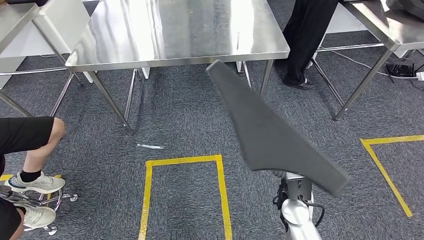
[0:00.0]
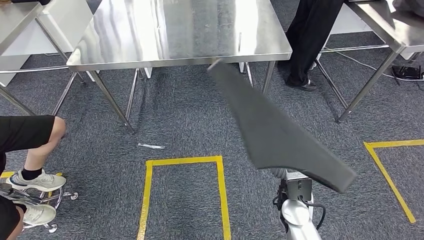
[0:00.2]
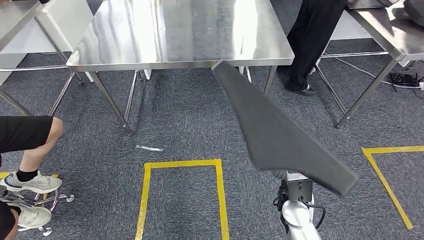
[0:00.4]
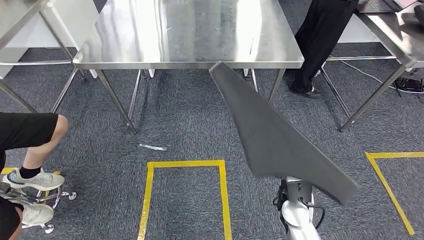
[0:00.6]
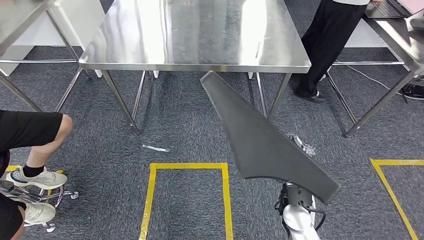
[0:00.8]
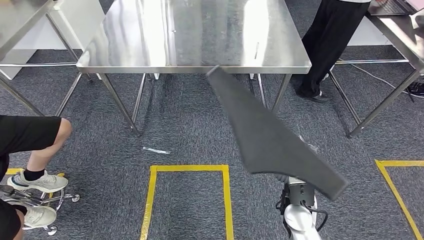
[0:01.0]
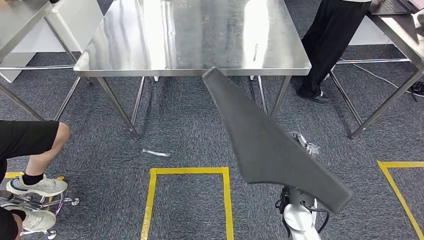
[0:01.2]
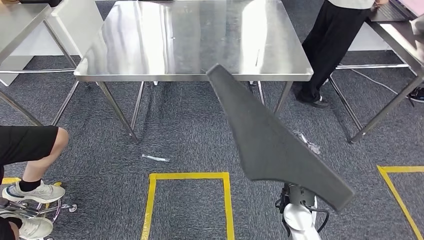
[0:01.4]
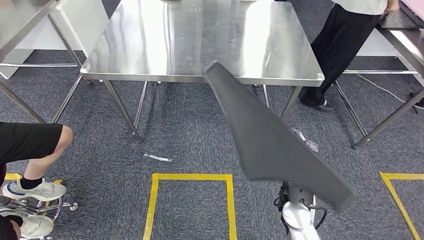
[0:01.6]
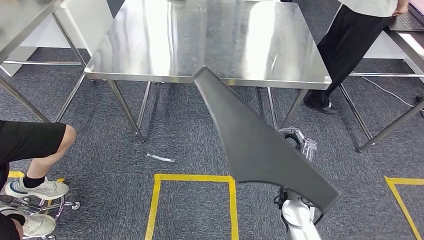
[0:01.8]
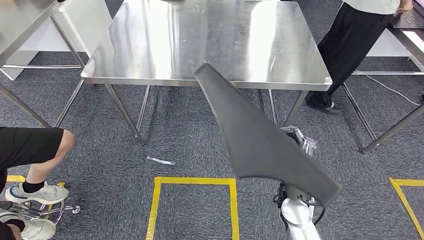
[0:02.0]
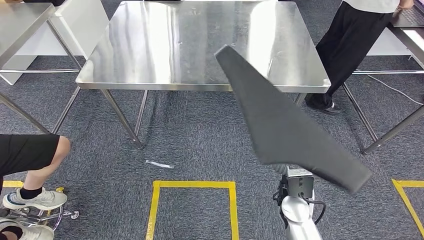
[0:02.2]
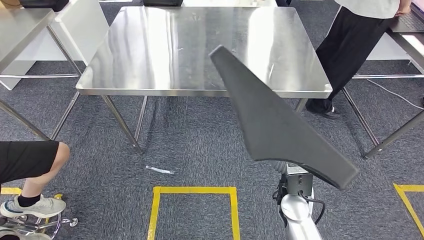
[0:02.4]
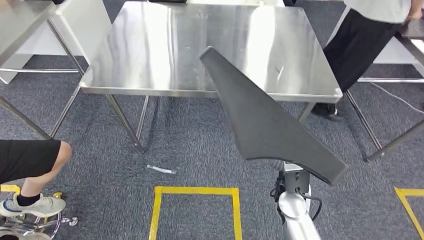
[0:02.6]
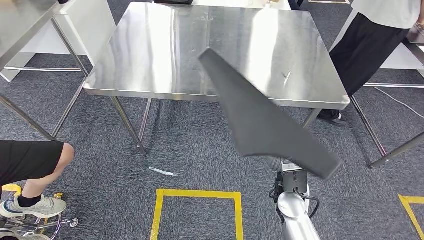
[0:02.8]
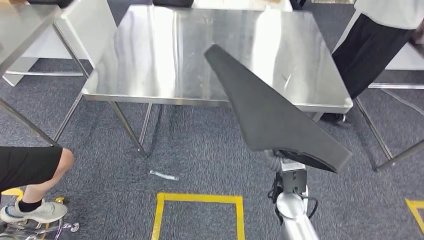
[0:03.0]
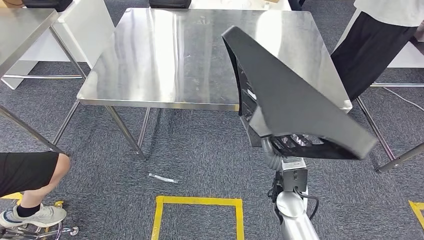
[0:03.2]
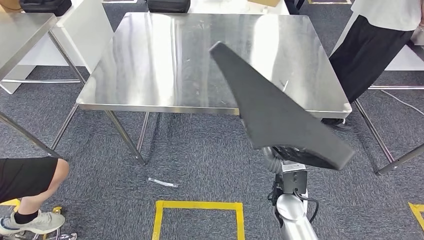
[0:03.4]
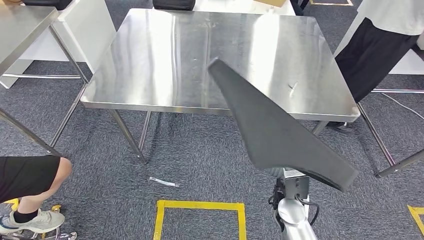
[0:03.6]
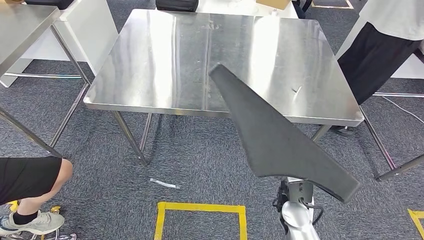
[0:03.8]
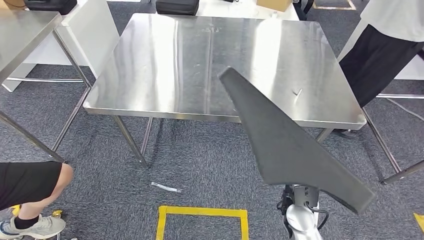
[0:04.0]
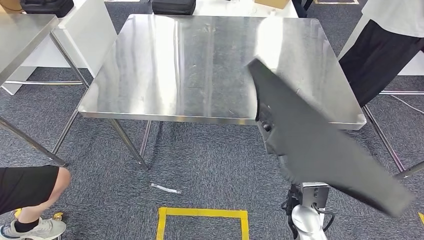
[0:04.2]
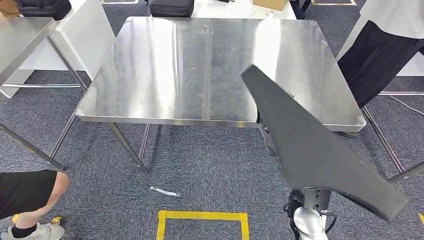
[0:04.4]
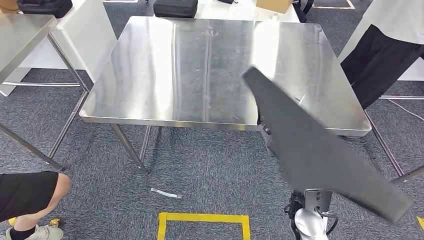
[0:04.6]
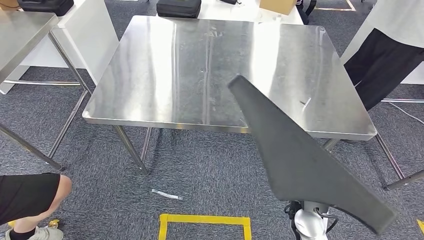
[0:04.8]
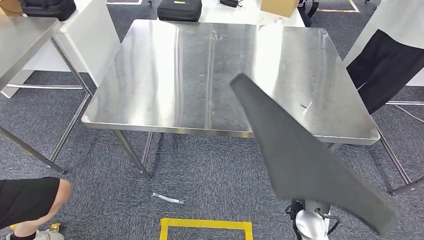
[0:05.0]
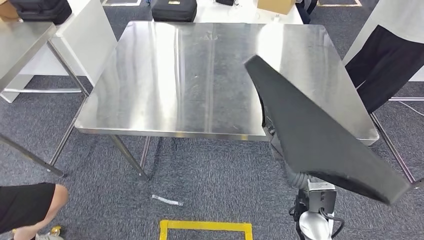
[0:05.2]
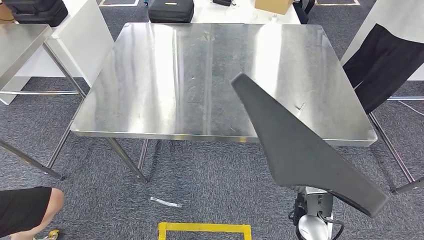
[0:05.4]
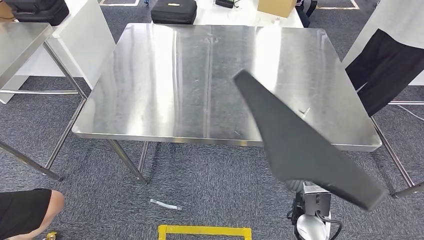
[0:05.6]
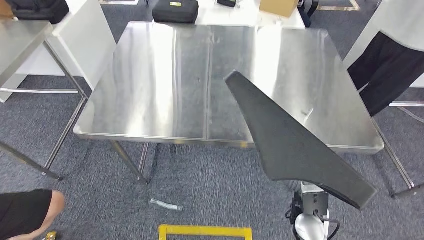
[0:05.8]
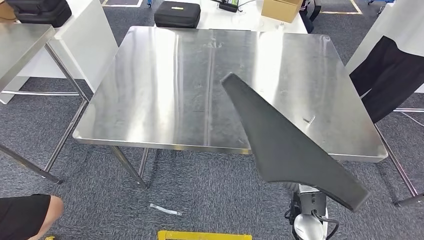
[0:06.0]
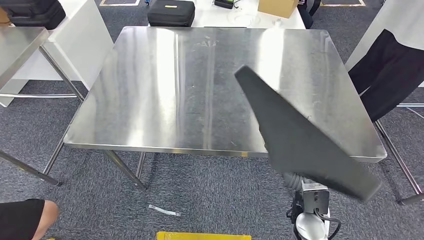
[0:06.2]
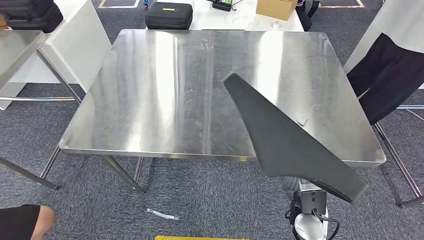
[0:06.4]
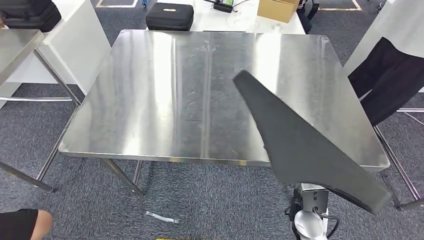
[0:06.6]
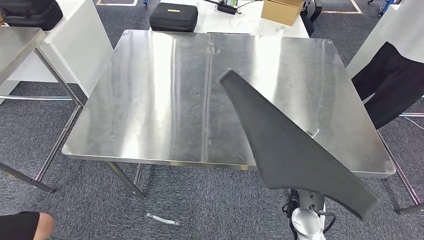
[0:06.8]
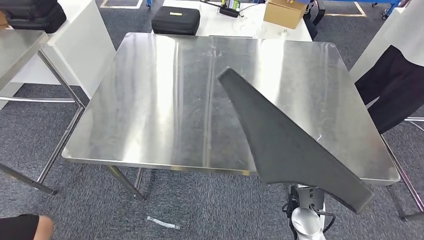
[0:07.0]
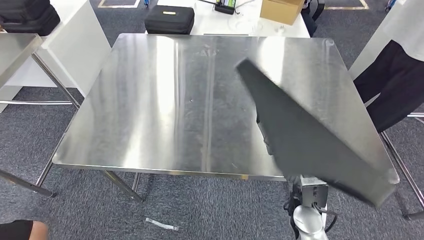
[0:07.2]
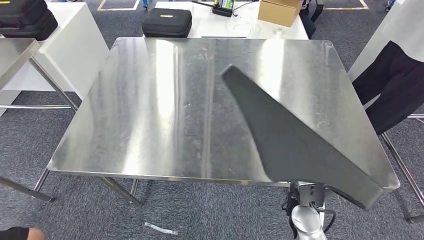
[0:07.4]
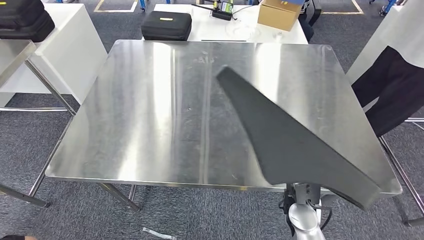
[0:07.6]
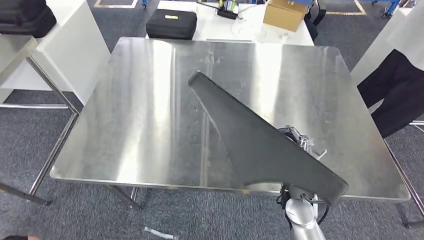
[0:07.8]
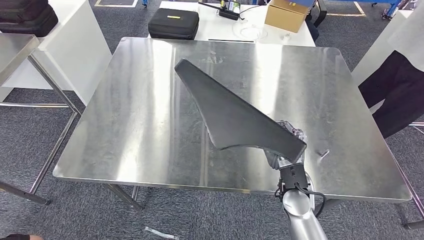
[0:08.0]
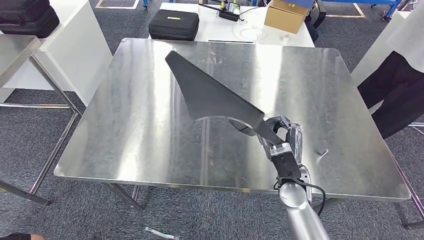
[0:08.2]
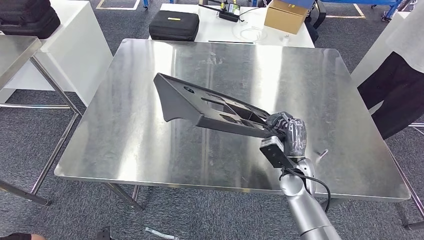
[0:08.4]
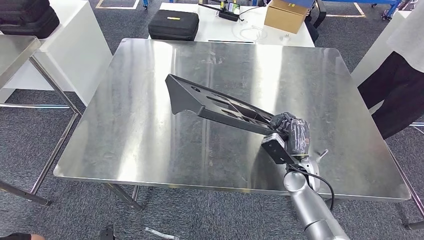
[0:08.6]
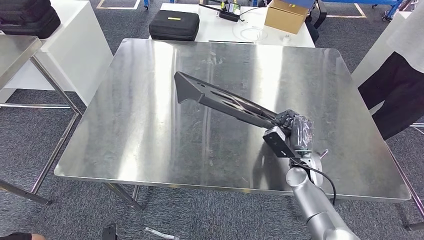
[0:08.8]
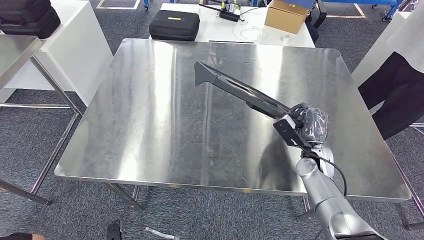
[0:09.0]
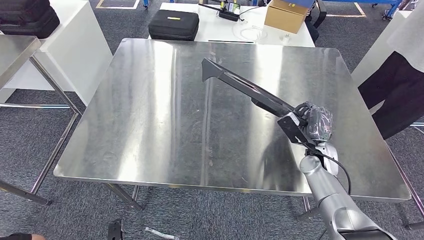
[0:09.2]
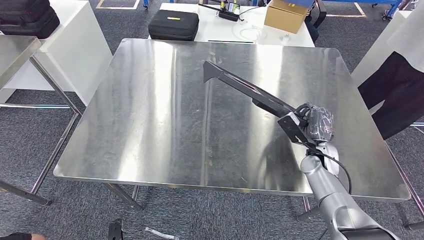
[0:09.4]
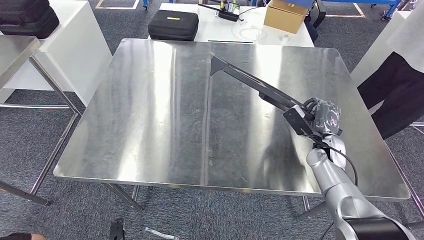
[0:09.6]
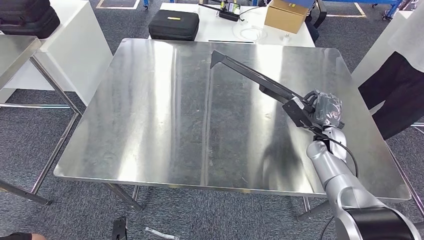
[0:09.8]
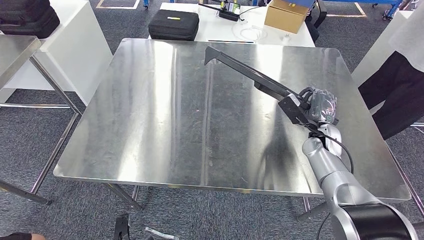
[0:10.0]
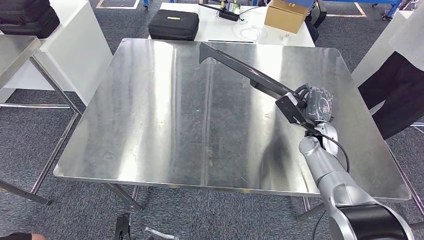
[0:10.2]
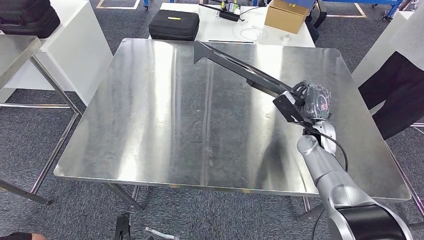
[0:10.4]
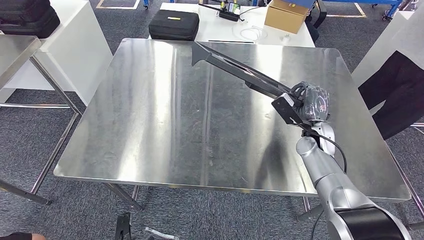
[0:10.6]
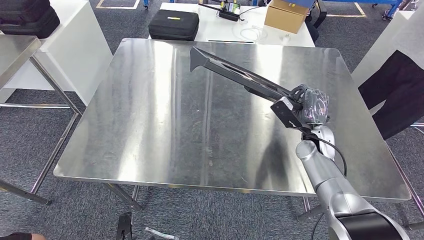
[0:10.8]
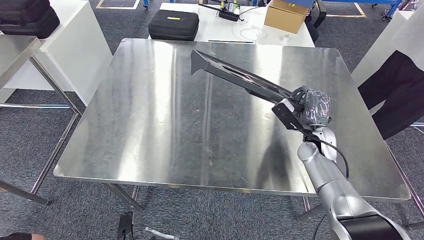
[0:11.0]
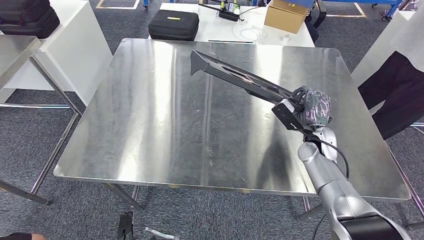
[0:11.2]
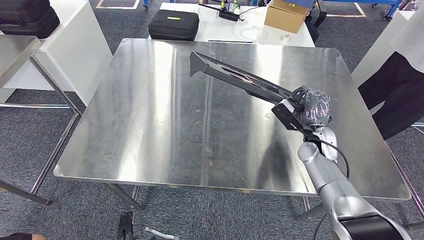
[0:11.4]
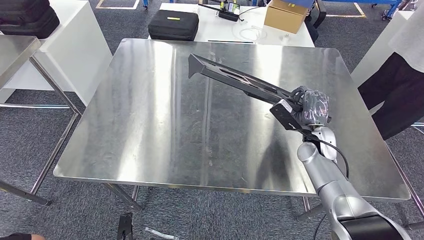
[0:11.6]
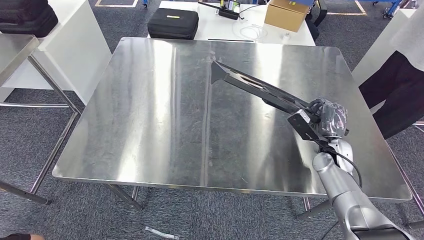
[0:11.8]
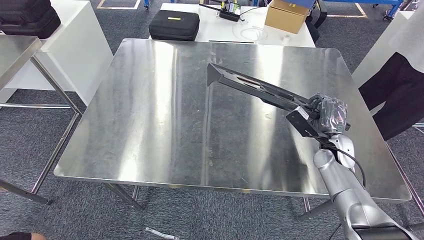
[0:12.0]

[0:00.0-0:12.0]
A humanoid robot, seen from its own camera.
Step, 0:00.0 to 0:02.0: Move the large material to the workbench.
0:09.0 to 0:10.4: The right hand shifts by roughly 5 cm.
0:10.4 to 0:12.0: The right hand moves roughly 5 cm. The left hand travels backward by about 15 cm.

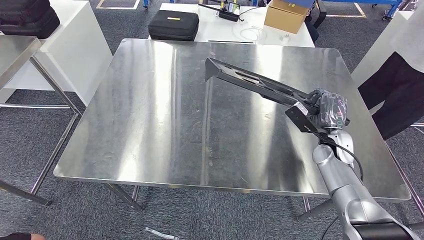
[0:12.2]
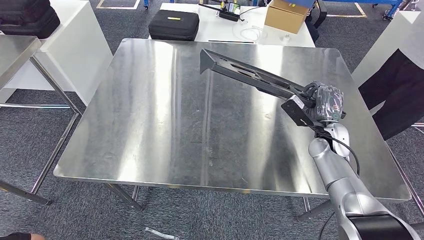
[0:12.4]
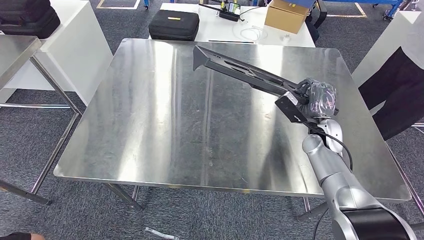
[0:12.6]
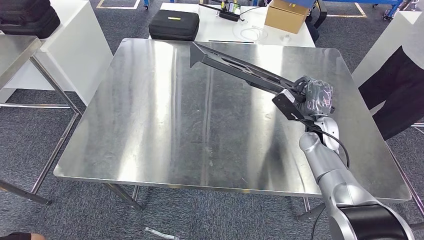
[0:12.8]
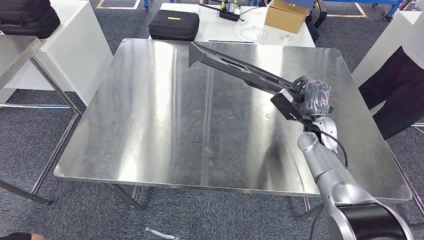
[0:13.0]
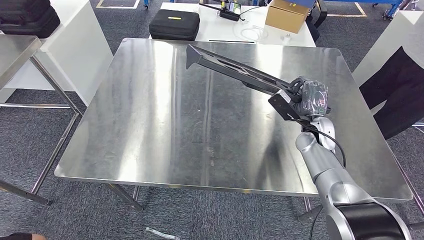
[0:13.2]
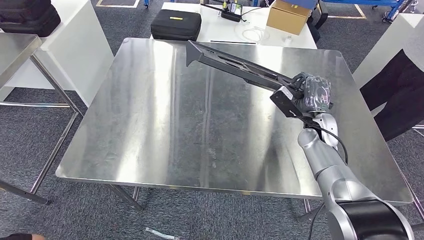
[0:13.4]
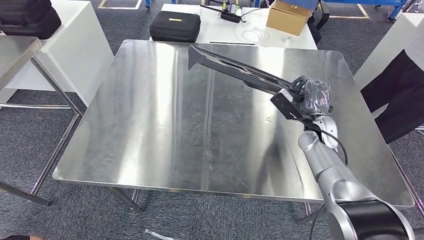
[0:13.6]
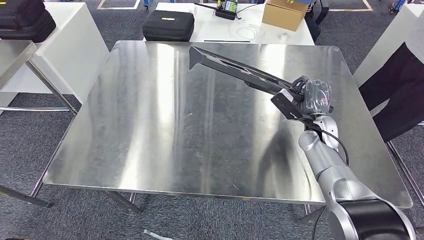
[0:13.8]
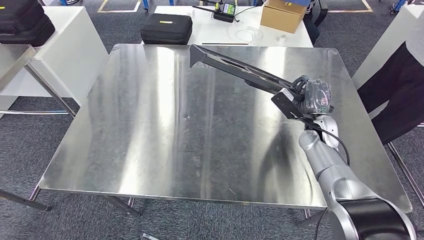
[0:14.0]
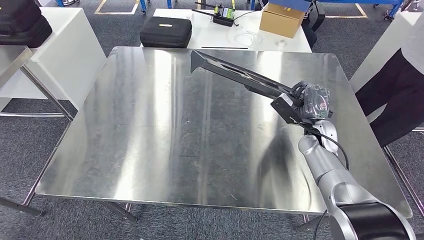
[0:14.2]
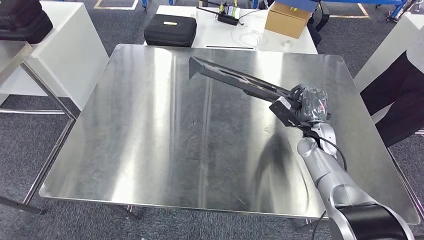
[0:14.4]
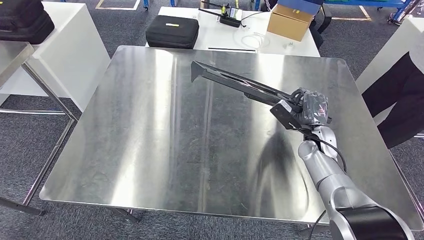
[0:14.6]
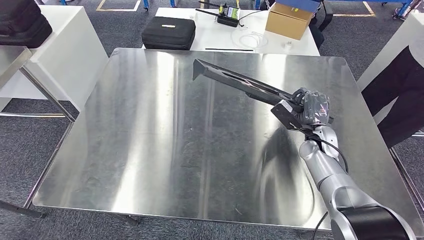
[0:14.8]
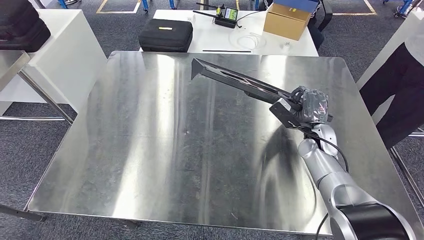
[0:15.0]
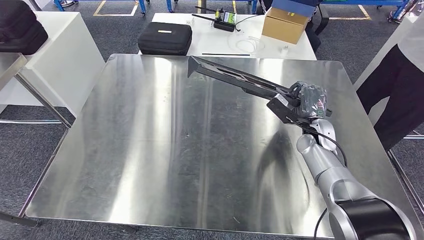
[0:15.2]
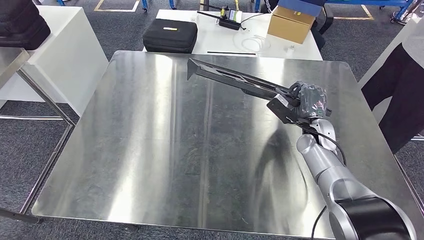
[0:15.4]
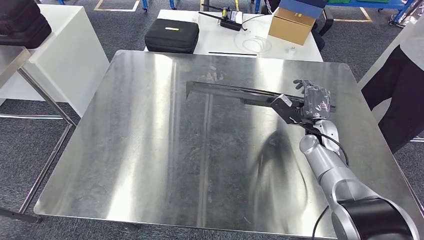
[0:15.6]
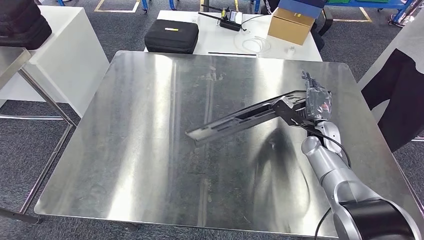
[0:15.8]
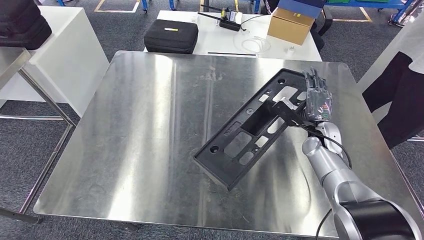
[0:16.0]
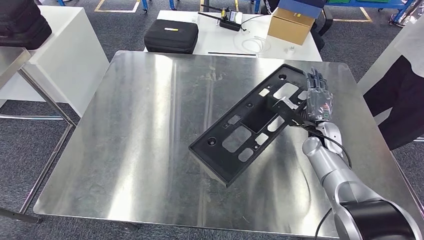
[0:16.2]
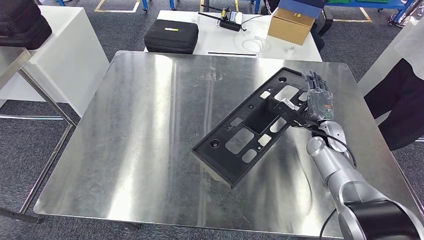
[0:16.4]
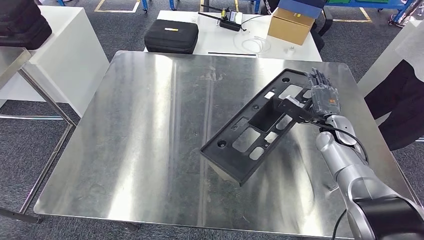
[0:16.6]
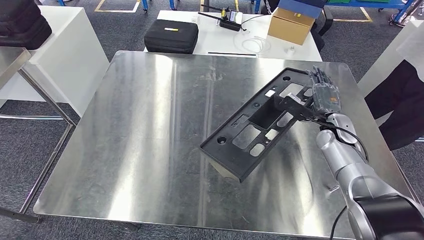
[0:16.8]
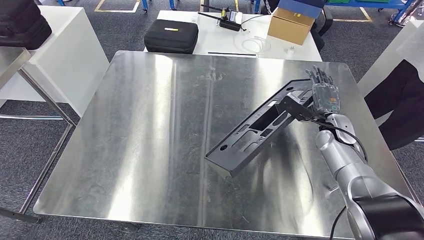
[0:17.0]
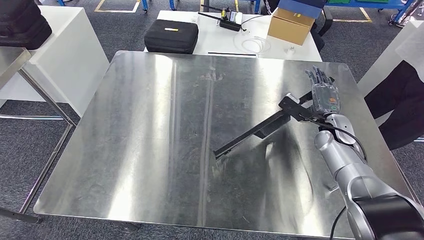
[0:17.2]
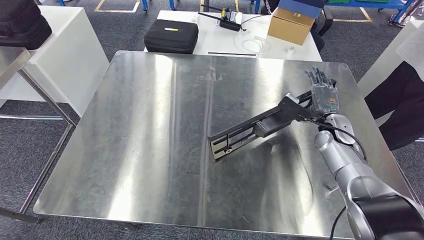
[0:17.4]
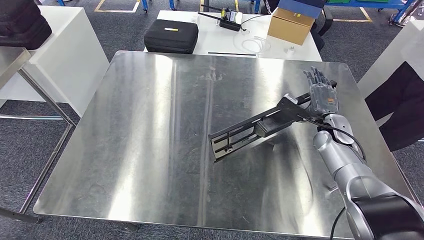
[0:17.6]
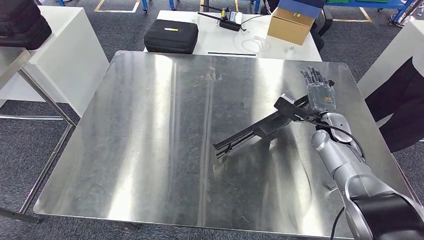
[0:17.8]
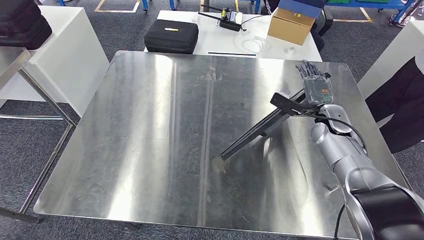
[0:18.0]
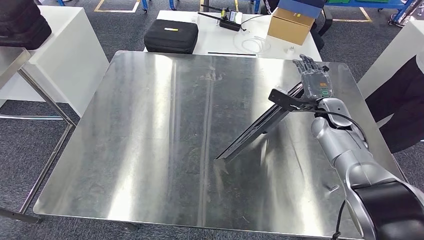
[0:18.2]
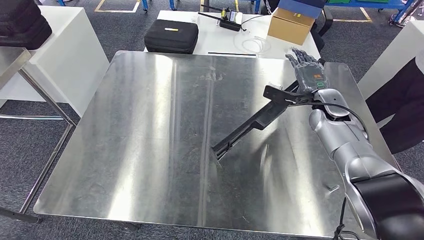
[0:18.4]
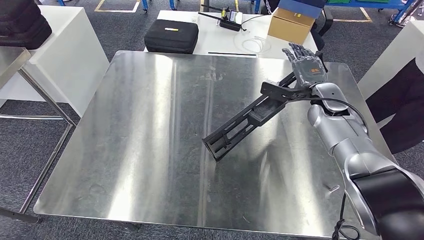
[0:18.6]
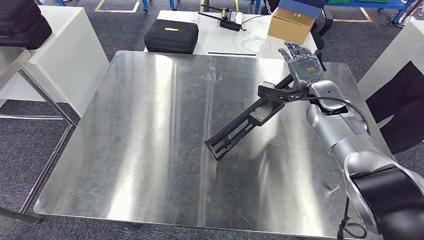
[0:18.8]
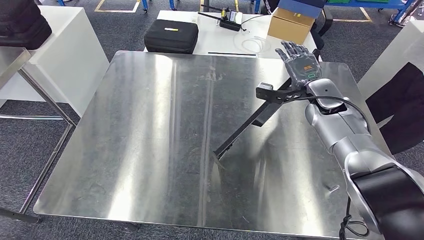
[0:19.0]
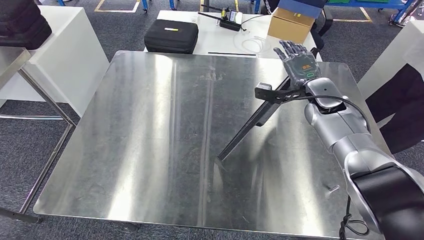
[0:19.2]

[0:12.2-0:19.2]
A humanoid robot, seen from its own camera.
Step, 0:12.2 to 0:18.4: Insert the large material into the corresponding slot on the workbench.
0:12.2 to 0:13.6: The right hand shifts by roughly 5 cm.
0:16.4 to 0:17.8: There are only small adjustments of the hands.
0:17.8 to 0:19.2: The right hand travels upward by some 10 cm.
